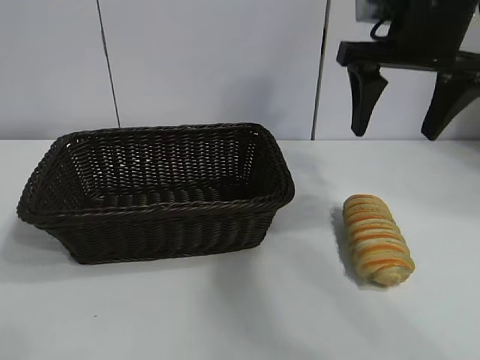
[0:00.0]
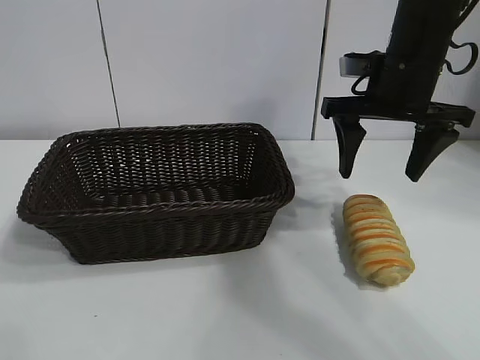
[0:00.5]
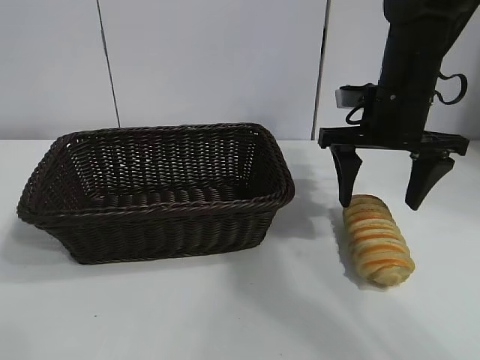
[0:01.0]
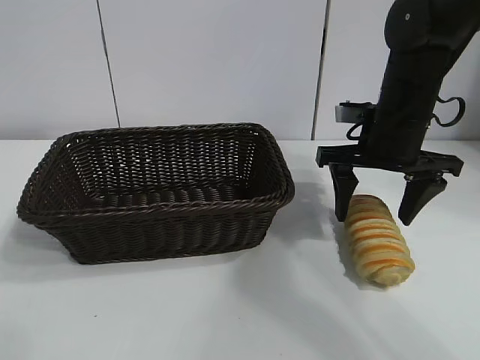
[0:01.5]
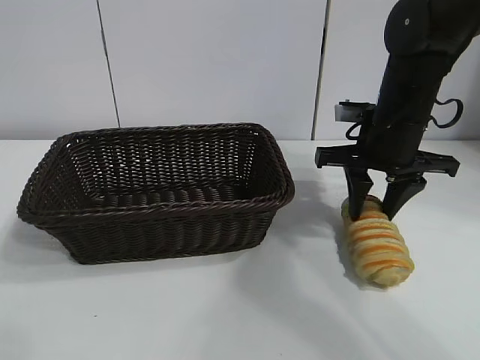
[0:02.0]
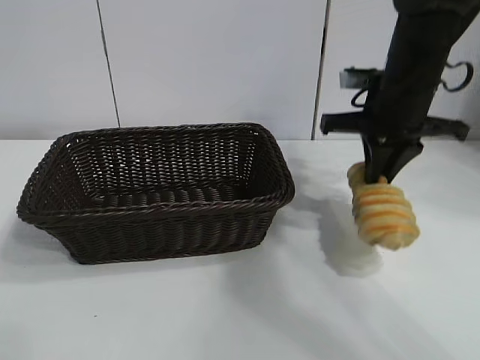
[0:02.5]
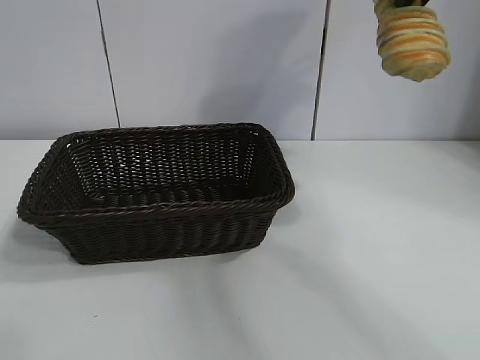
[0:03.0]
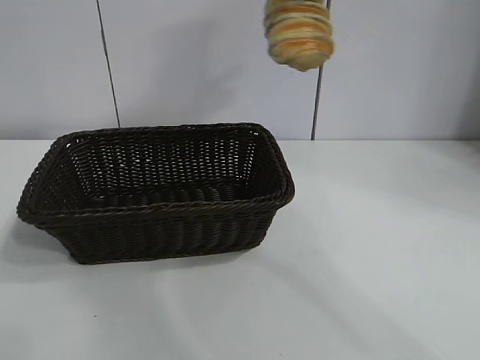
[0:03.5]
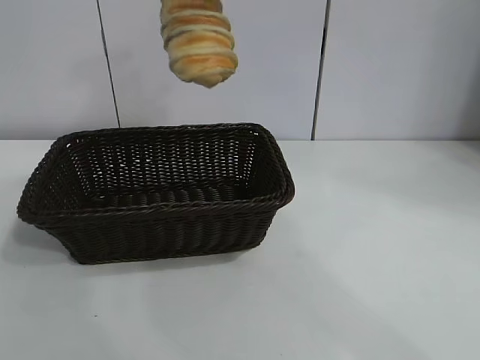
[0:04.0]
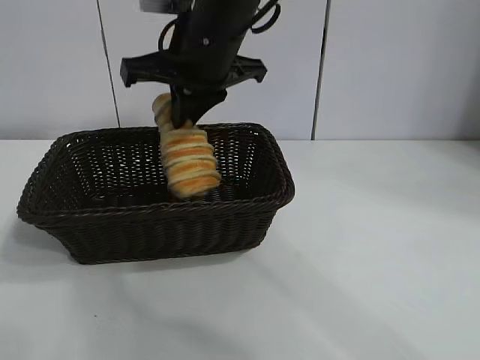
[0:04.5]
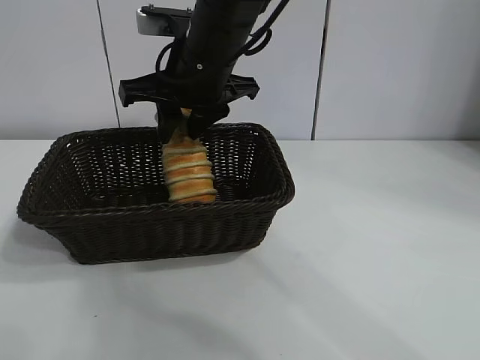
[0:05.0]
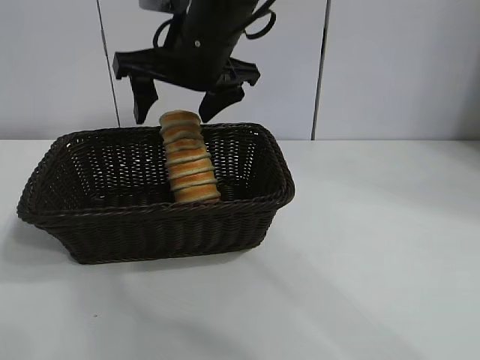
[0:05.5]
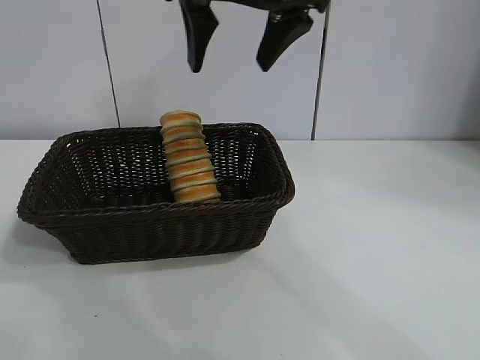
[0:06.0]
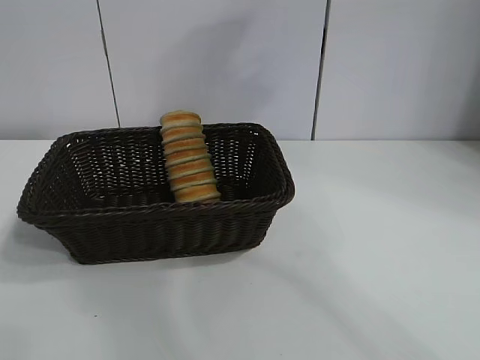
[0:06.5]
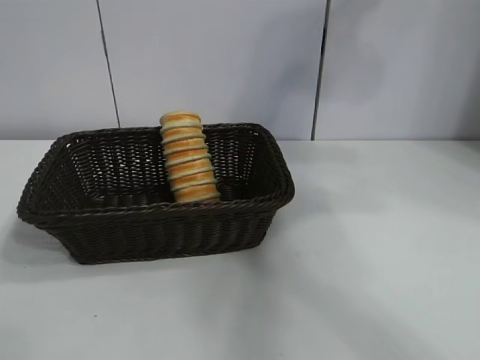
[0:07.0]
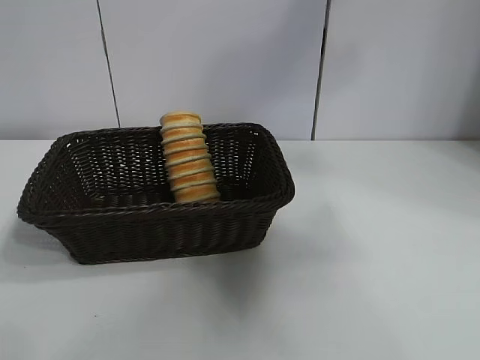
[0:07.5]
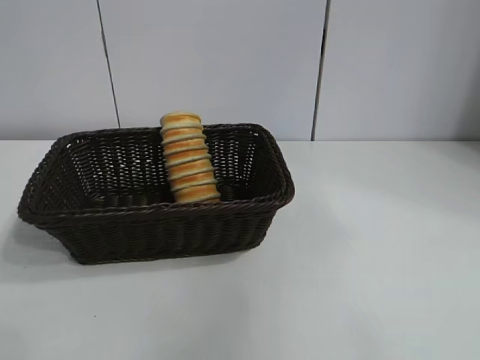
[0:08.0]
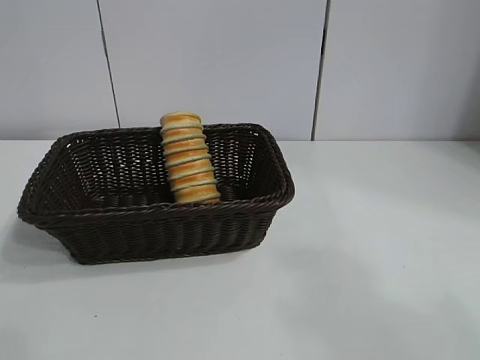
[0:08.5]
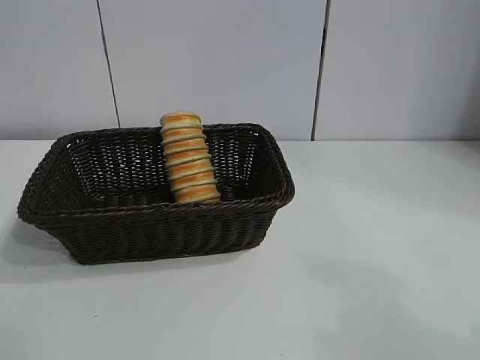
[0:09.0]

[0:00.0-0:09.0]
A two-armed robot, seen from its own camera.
Task of the whole recording: pick up the long bread and put it into the basket.
Step, 0:00.0 to 0:02.0: Grasp the long bread with right gripper.
Step, 0:02.5 to 0:05.0: Place the long bread in the basket with right gripper.
